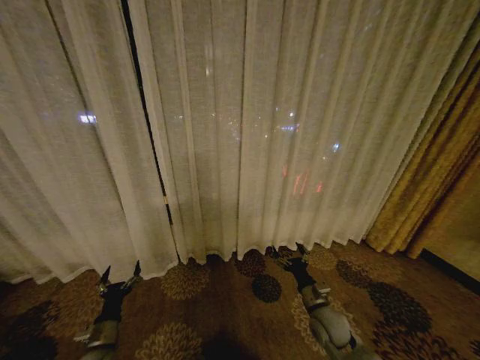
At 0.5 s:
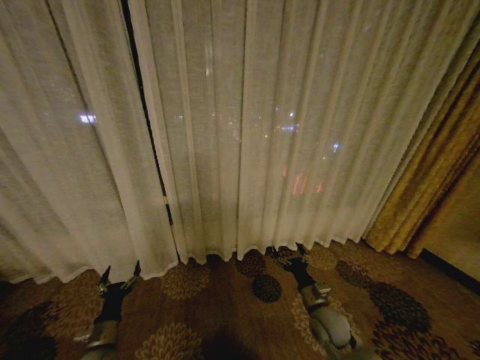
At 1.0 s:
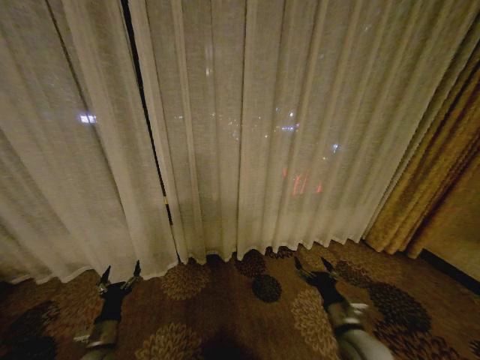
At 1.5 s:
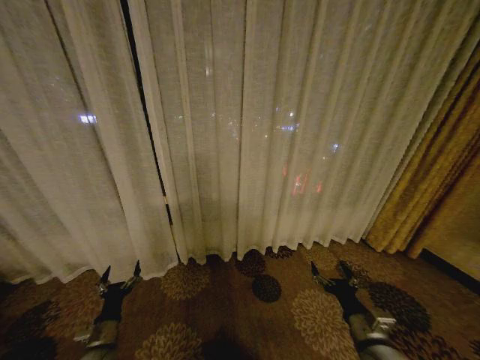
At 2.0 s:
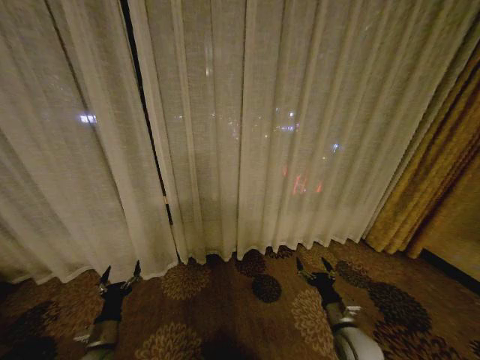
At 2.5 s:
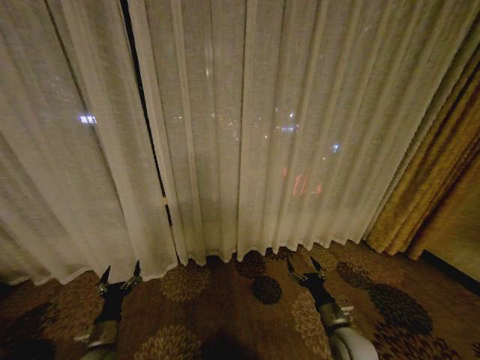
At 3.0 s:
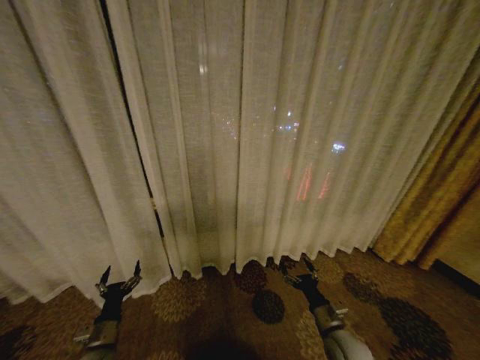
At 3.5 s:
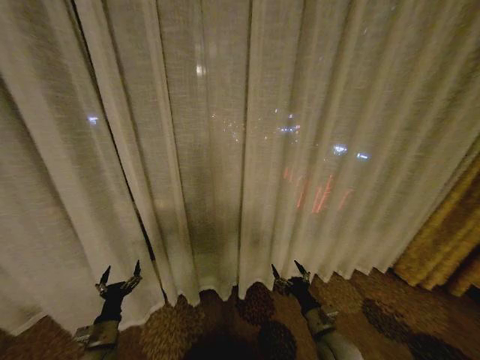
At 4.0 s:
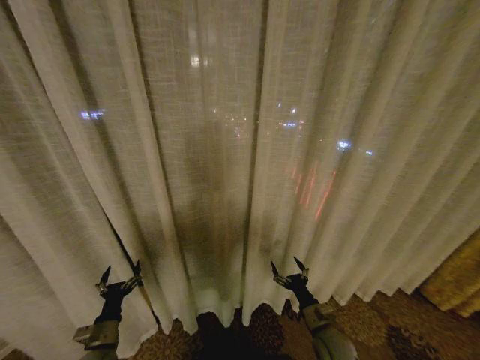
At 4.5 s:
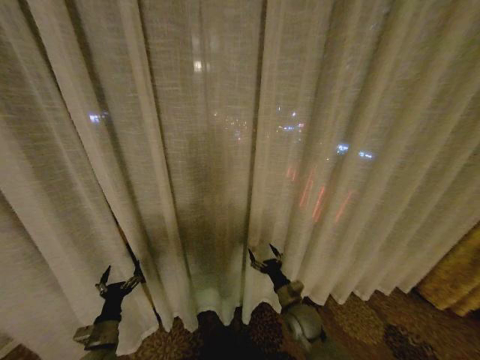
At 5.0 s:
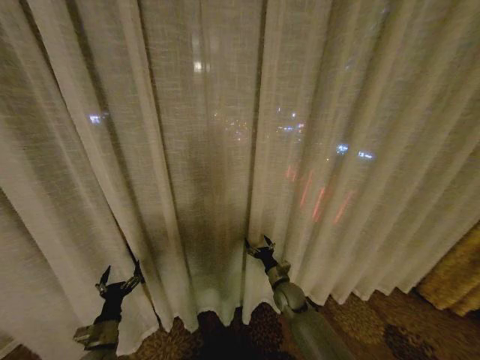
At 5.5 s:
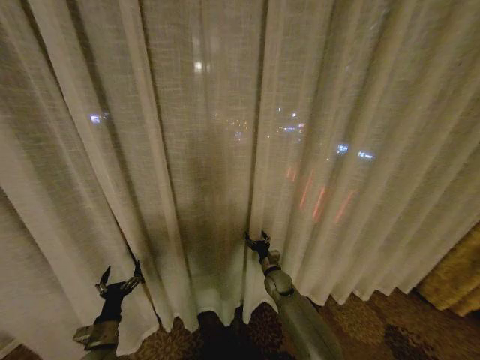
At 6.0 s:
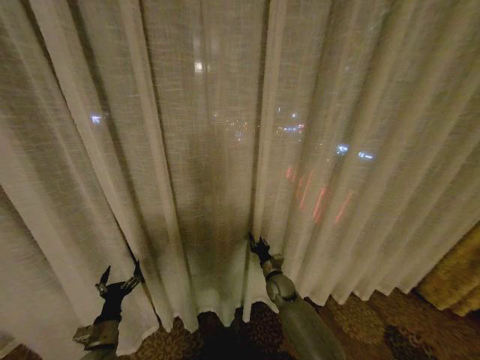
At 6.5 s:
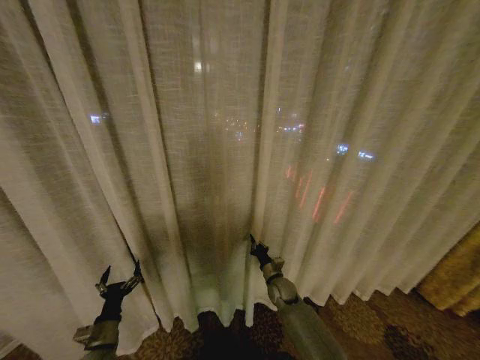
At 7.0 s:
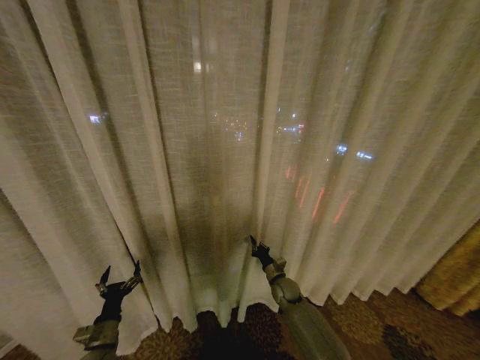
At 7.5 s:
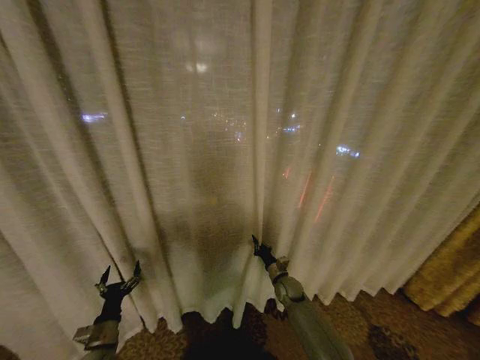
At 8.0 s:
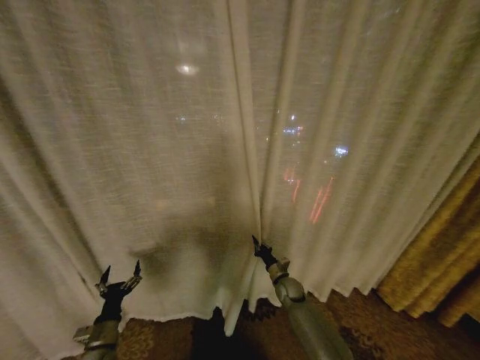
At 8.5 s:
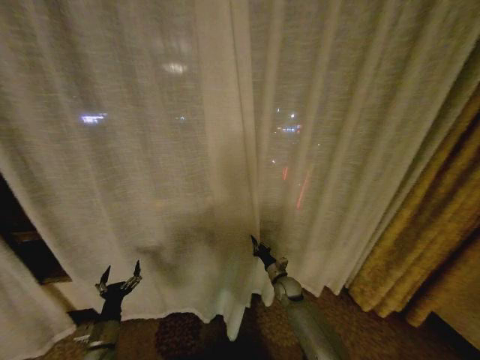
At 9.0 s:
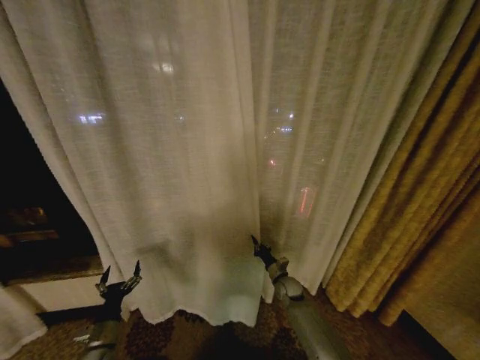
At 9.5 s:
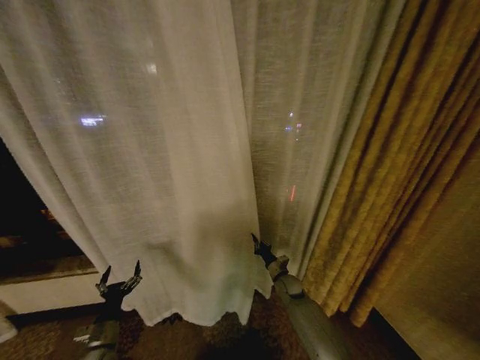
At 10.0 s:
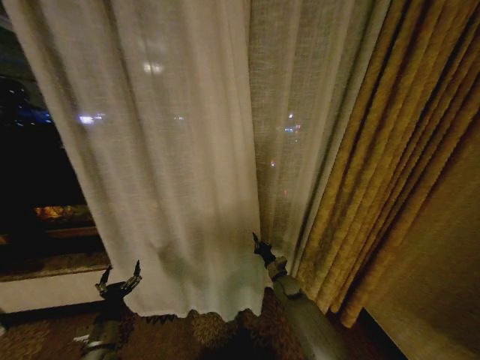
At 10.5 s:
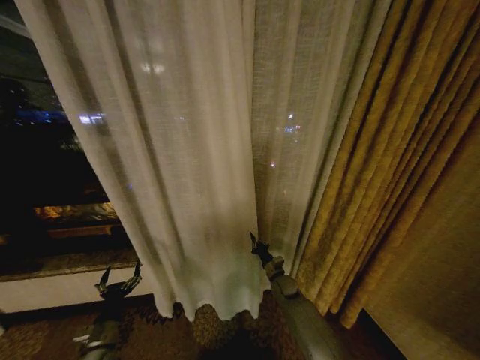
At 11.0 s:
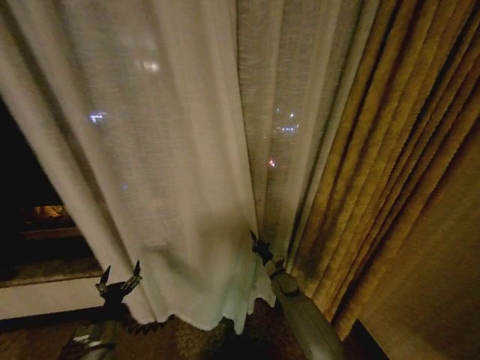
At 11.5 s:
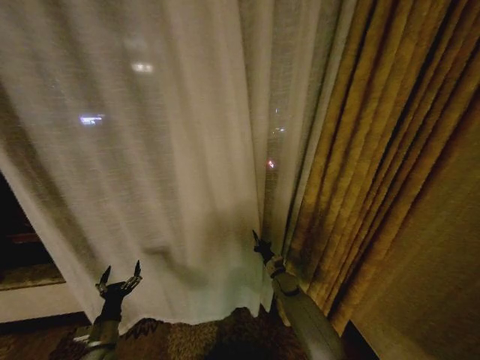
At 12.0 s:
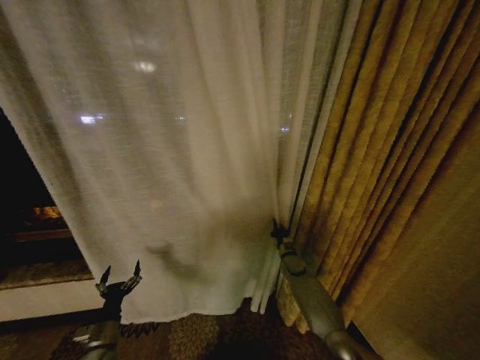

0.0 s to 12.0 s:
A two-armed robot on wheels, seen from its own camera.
Task of the whole recording: Open the curtains by pulling them apart, changing their state from closed to fully open.
2.0 to 4.0 s: The right gripper shifts by roughly 5 cm.
4.0 to 6.0 s: The right gripper moves forward and to the left, some 20 cm, and closes up.
6.0 to 8.0 s: The right gripper closes its fingers.
10.0 to 12.0 s: The right gripper goes roughly 5 cm forward.

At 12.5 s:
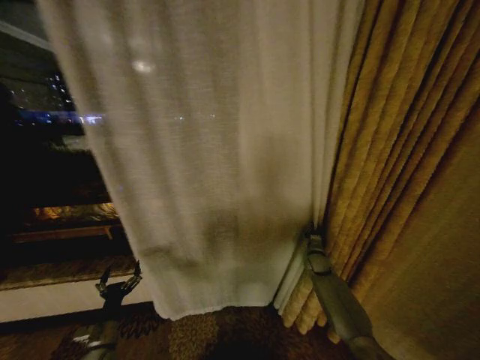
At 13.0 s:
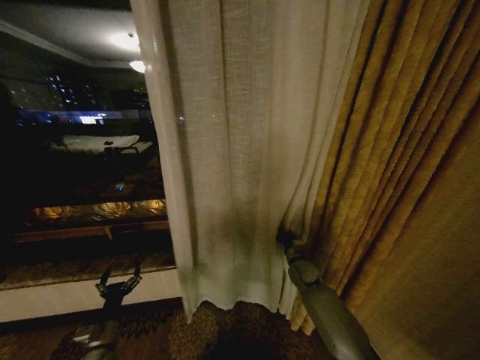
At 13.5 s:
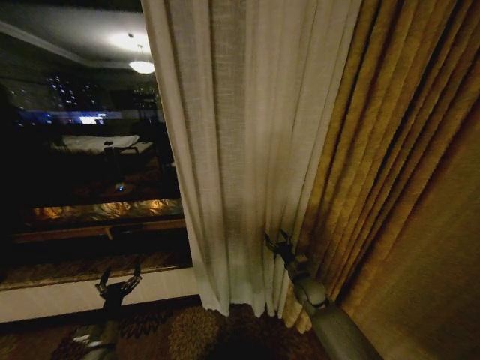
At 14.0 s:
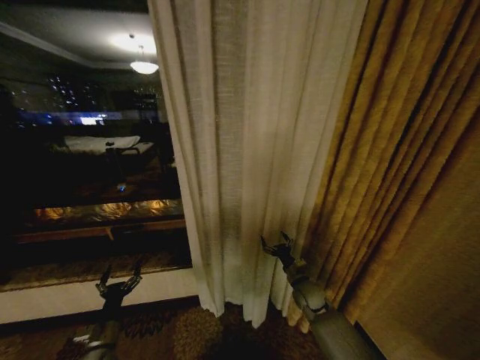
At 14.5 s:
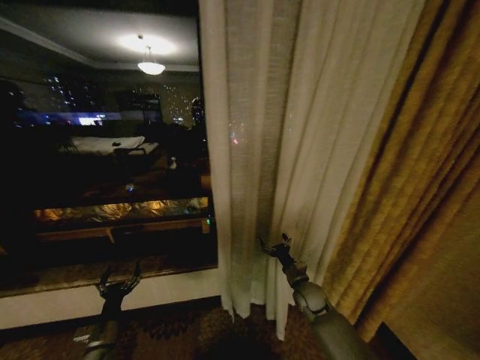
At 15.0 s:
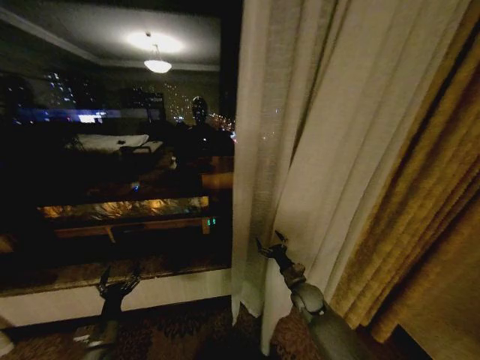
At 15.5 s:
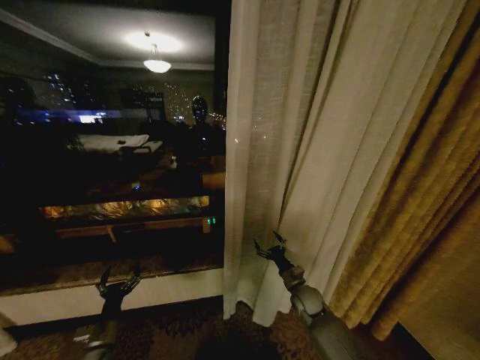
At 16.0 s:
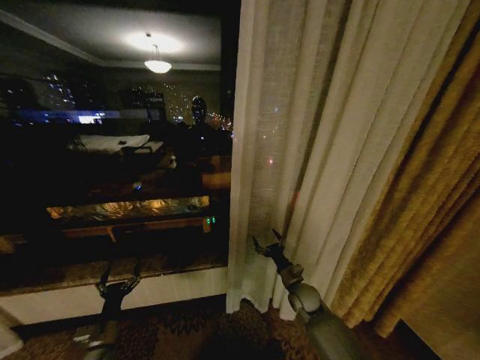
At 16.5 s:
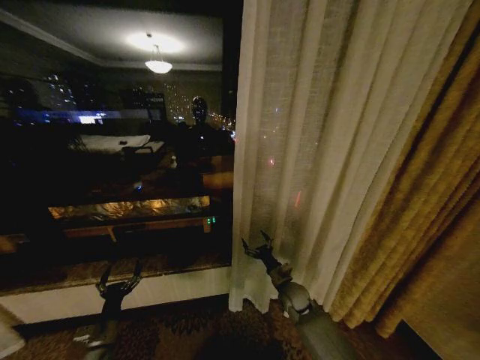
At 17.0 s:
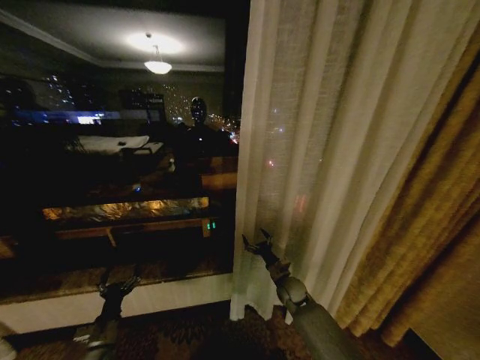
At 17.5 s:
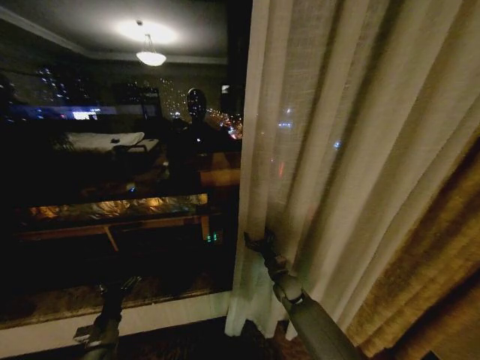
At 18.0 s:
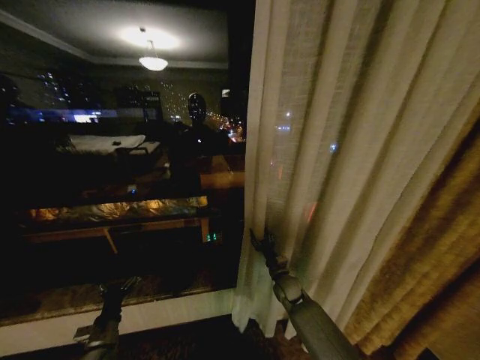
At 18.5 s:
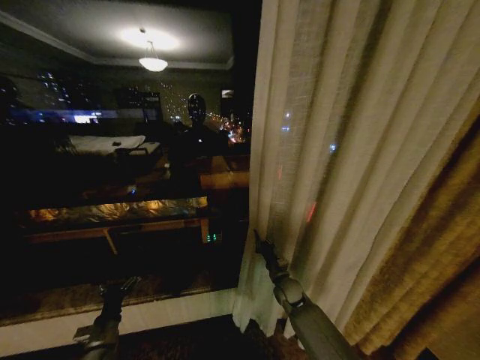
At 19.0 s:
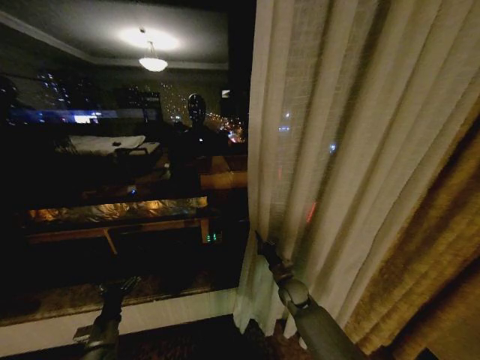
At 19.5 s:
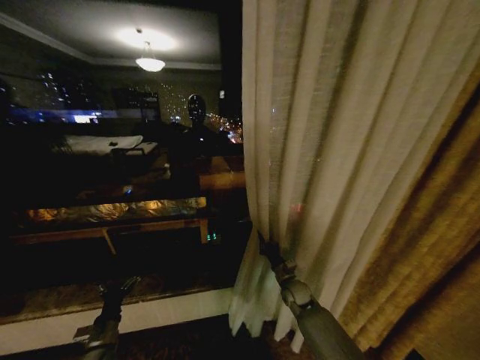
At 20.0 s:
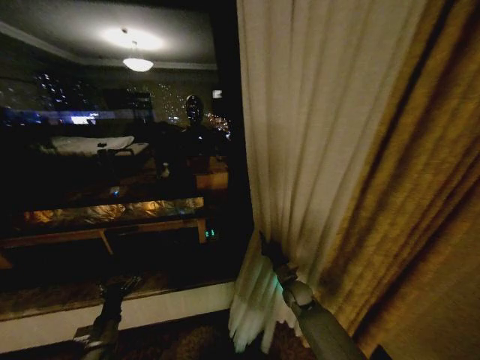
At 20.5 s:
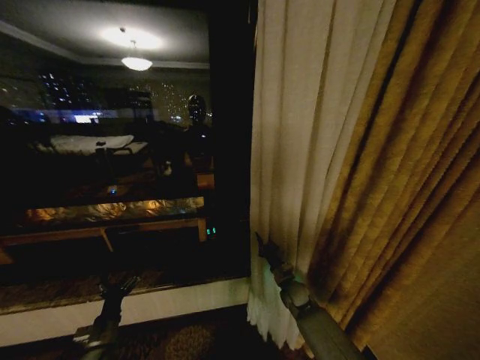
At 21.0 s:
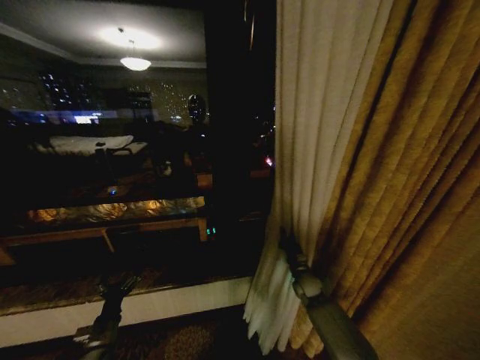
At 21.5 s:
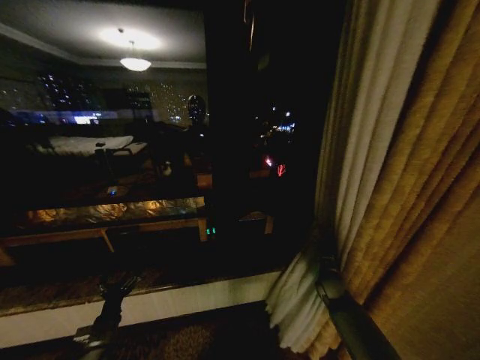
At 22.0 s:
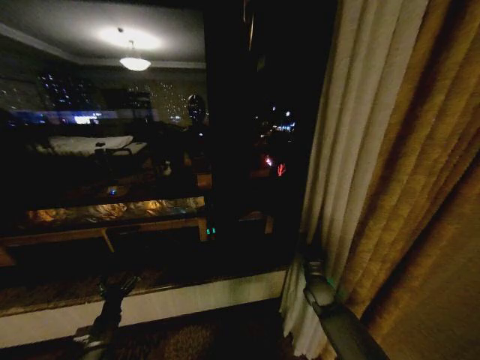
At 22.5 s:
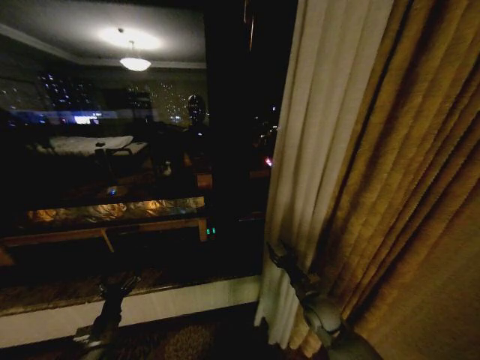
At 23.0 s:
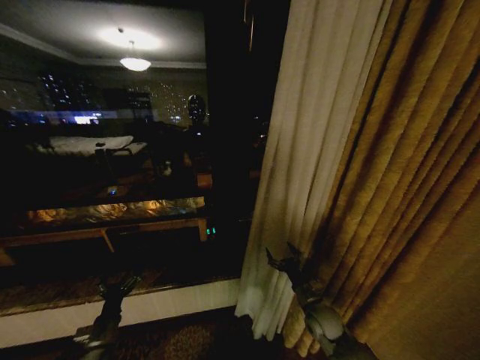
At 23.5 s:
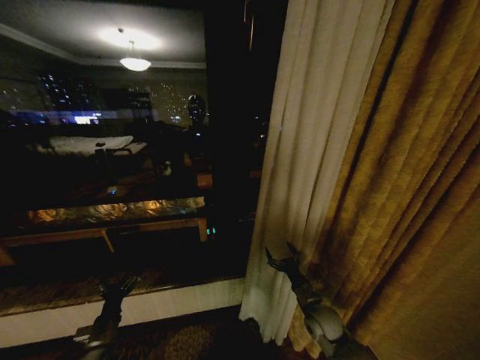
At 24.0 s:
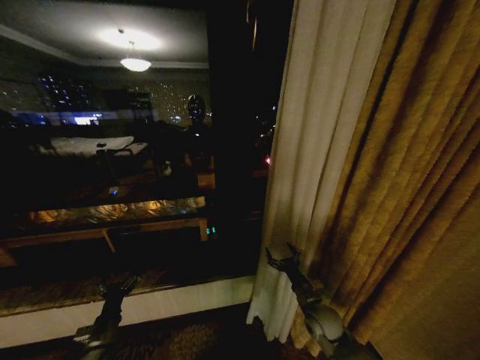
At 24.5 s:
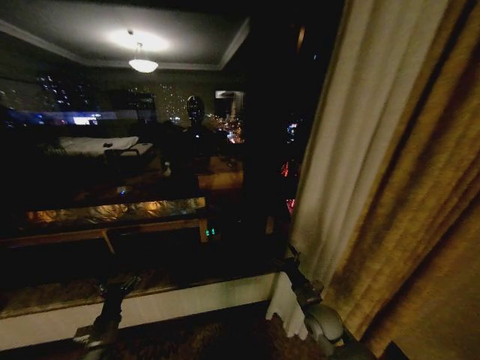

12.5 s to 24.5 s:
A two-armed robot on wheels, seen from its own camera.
Task of the whole recording: Open the curtains by pulling them apart, changing their state from closed to fully open.
12.5 to 14.5 s: The right gripper moves backward and to the left, some 15 cm, and opens its fingers.
14.5 to 16.5 s: The right gripper shifts by approximately 5 cm.
16.5 to 18.5 s: The right gripper closes its fingers.
20.5 to 22.5 s: The right gripper travels backward by about 10 cm, moves roughly 15 cm to the right and comes back, and opens its fingers.
22.5 to 24.5 s: The right gripper opens.

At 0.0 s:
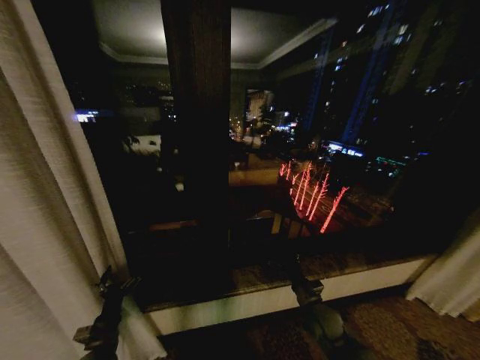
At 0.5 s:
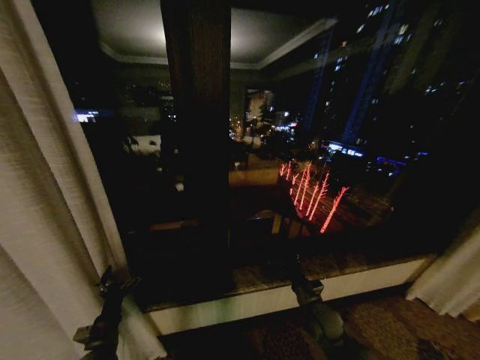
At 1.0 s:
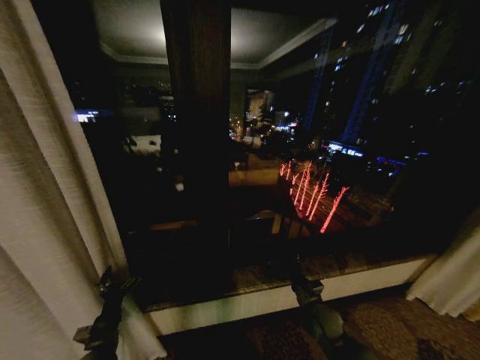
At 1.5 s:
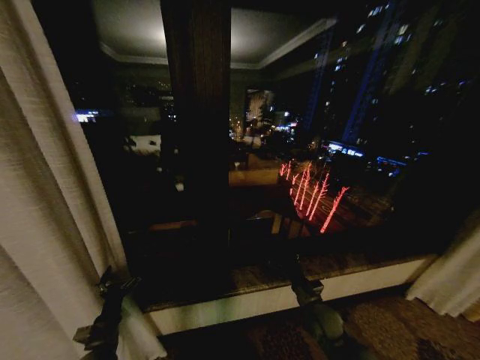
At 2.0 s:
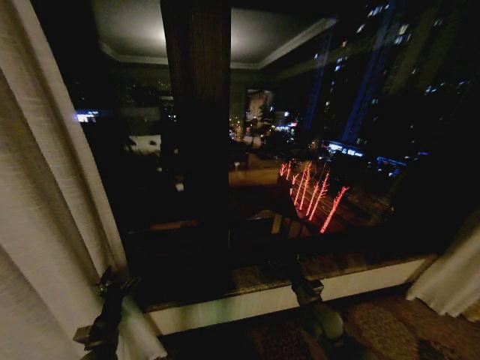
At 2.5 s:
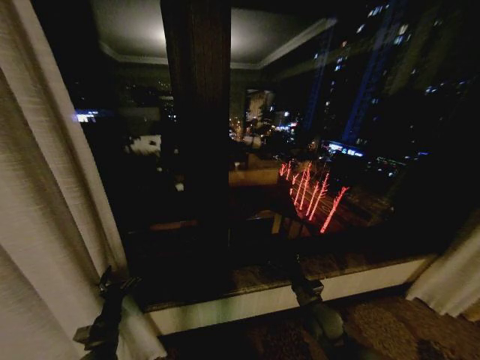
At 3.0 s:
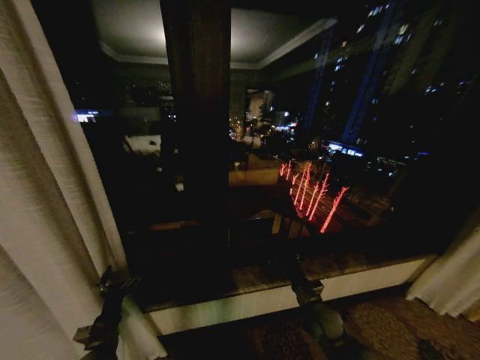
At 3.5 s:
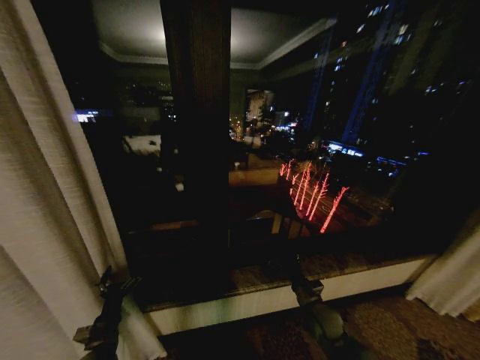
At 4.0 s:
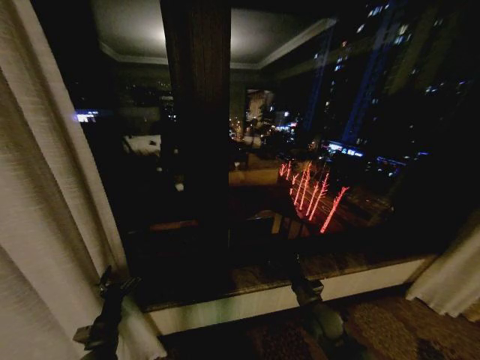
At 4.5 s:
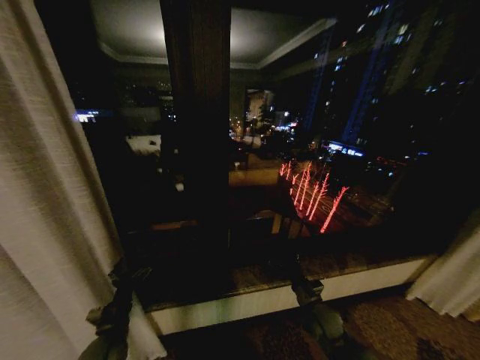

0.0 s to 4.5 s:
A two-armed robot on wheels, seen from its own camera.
Task of the whole recording: Open the curtains by pulling them apart, changing their state from closed to fully open.
0.0 to 2.0 s: Neither gripper changes place.
2.0 to 4.5 s: The left gripper shifts by some 5 cm.
